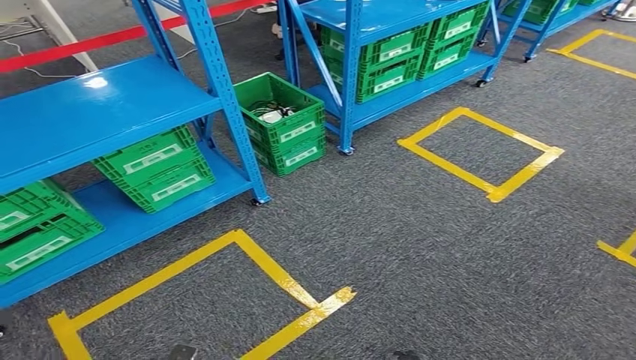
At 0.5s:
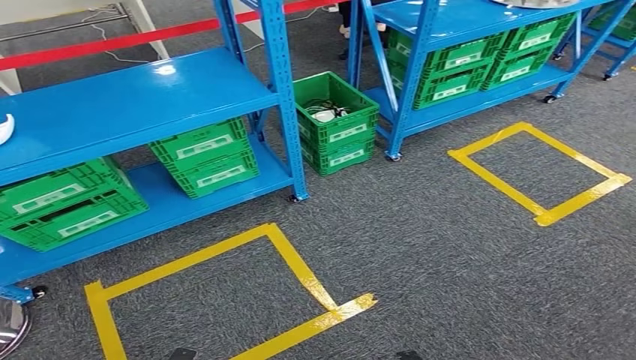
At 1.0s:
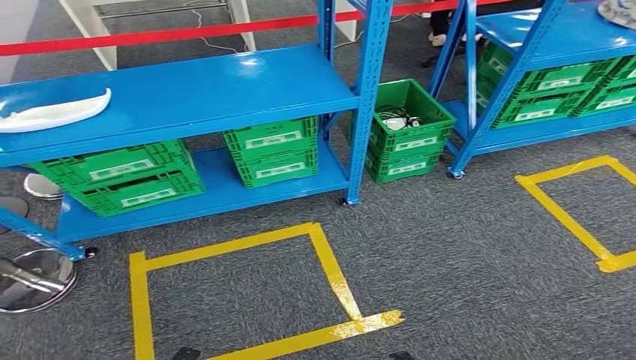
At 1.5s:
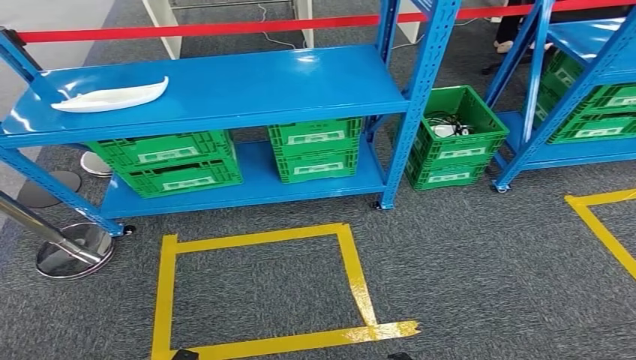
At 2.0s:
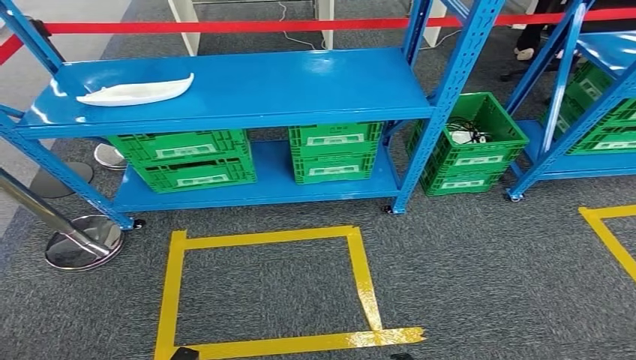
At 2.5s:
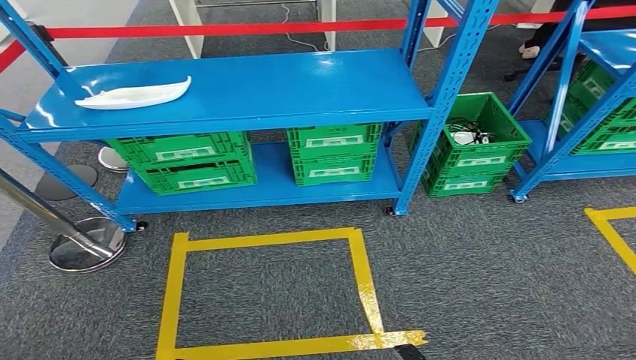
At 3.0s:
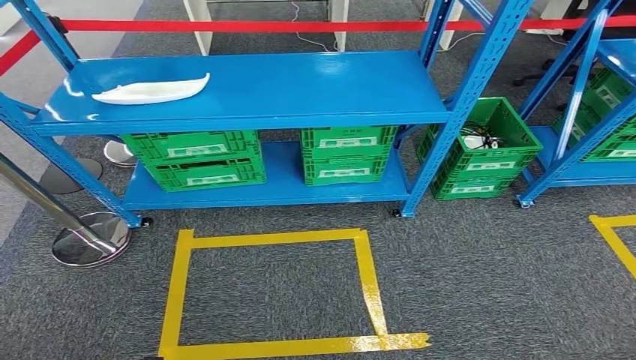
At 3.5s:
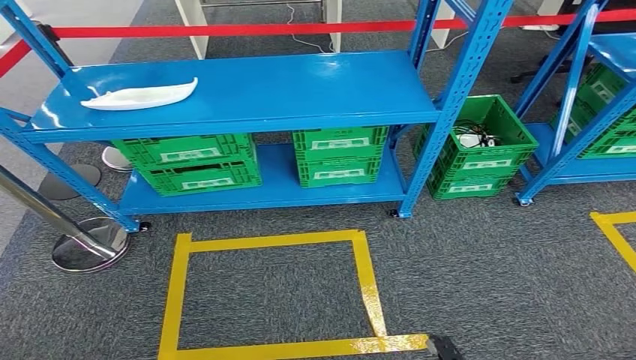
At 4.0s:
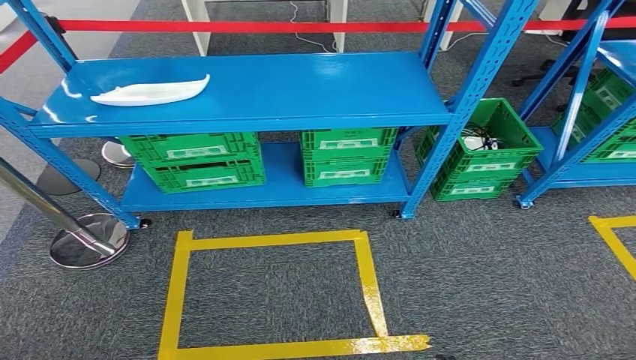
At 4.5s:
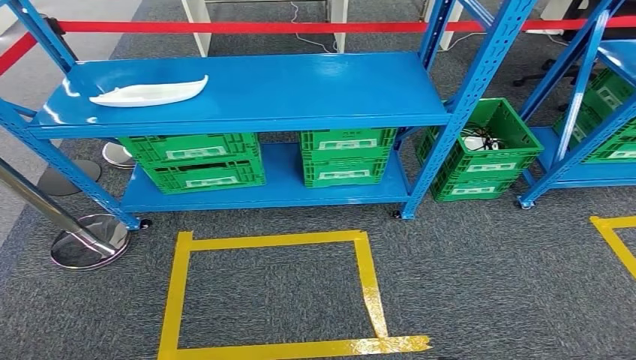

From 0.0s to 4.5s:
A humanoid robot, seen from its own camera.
Step, from 0.0s to 4.5s: Return to the initial position at the workbench.

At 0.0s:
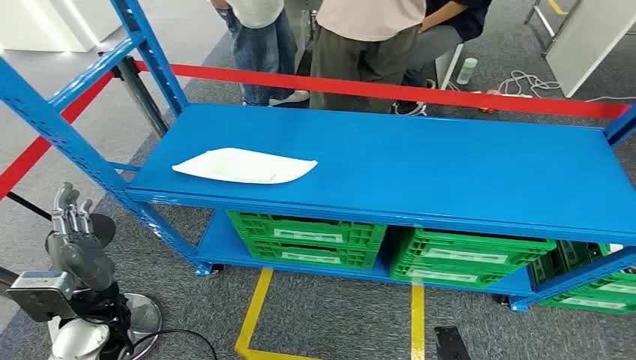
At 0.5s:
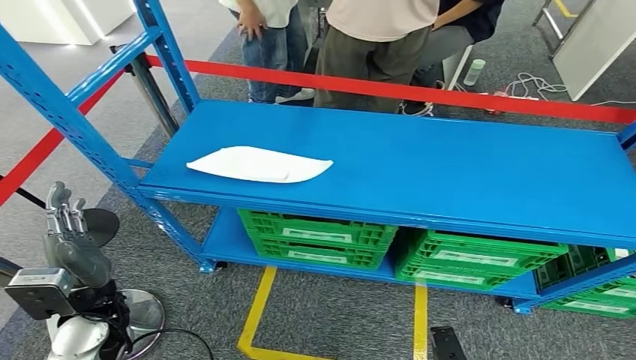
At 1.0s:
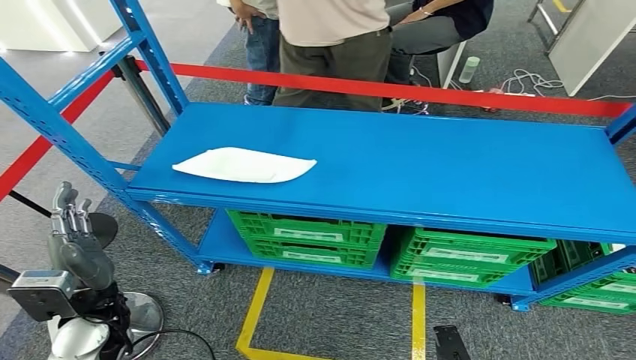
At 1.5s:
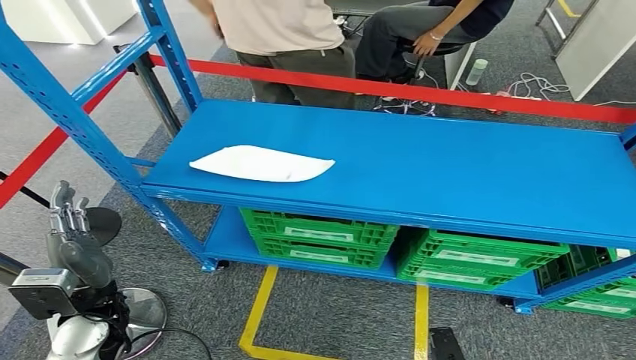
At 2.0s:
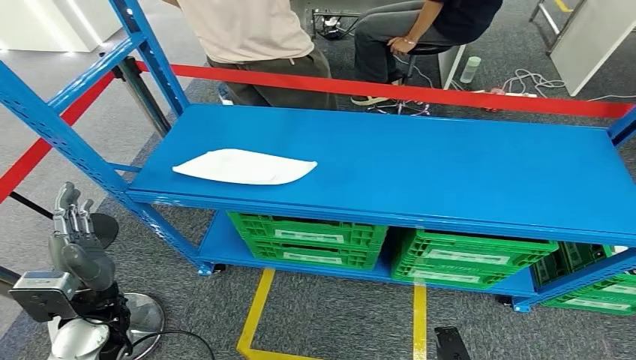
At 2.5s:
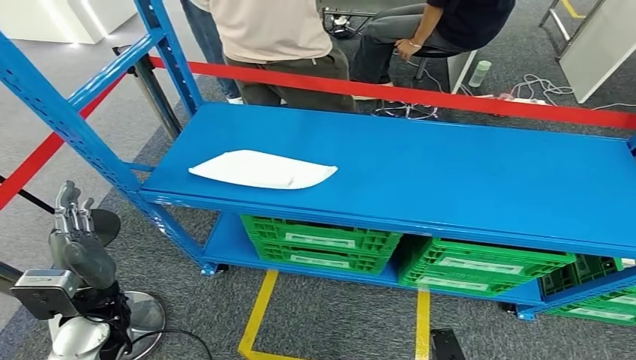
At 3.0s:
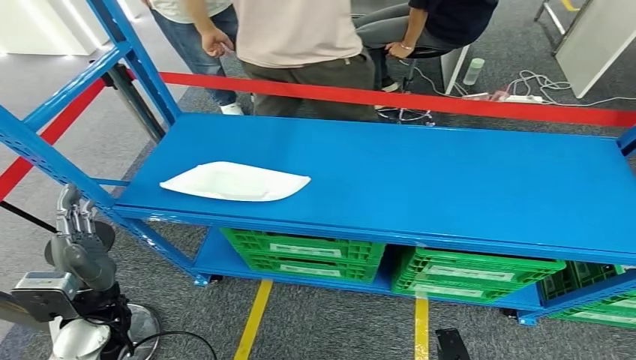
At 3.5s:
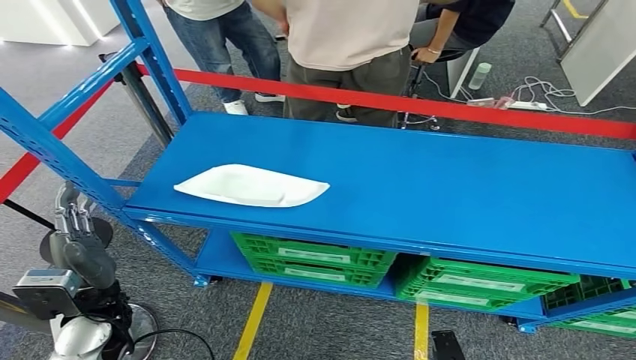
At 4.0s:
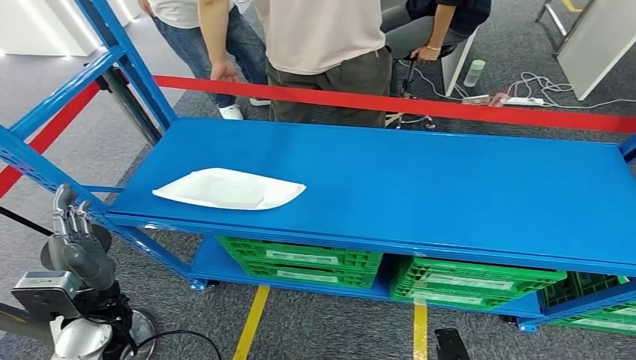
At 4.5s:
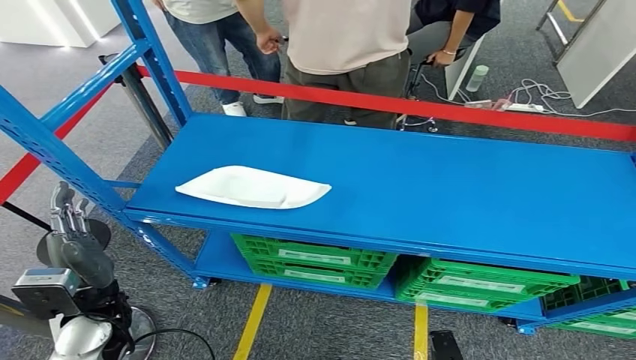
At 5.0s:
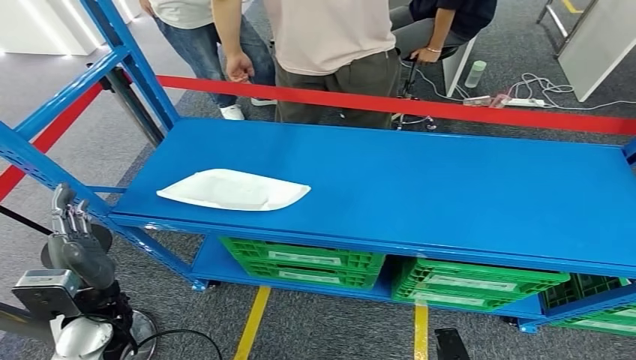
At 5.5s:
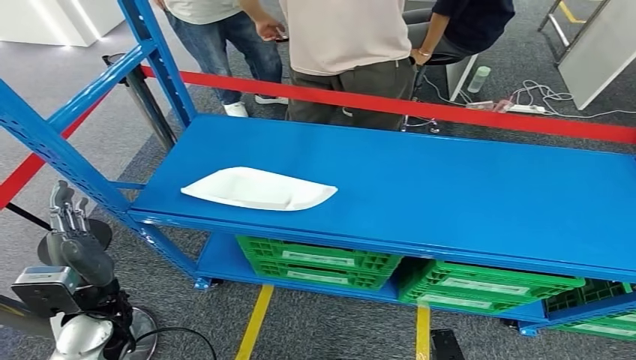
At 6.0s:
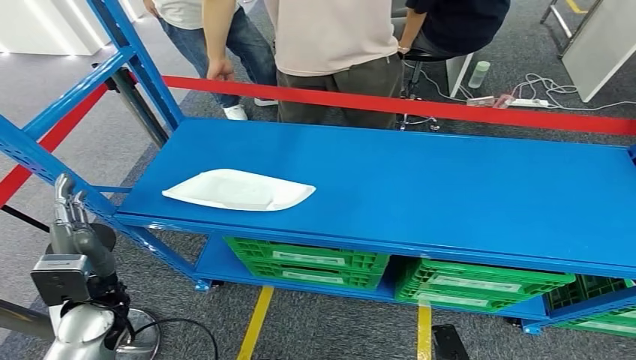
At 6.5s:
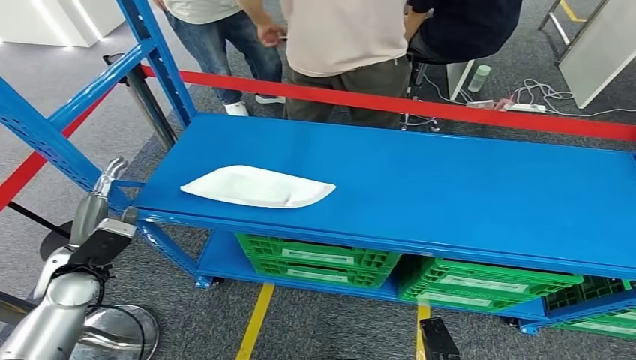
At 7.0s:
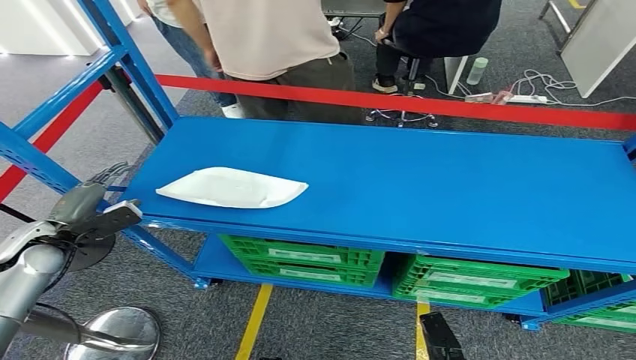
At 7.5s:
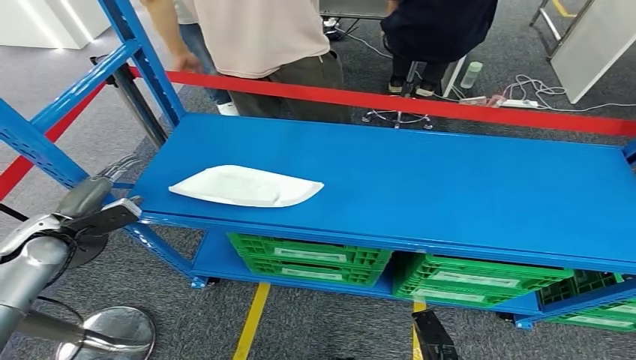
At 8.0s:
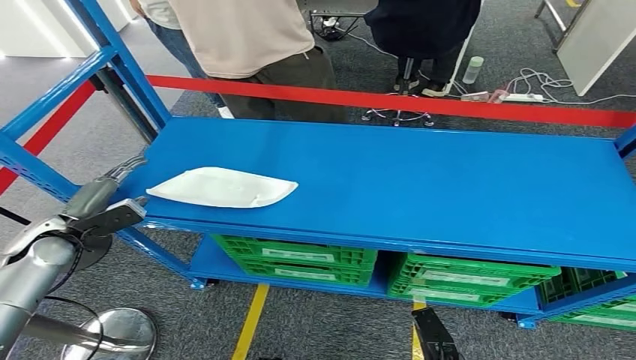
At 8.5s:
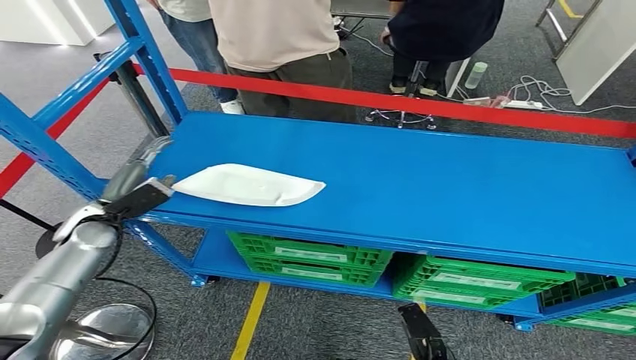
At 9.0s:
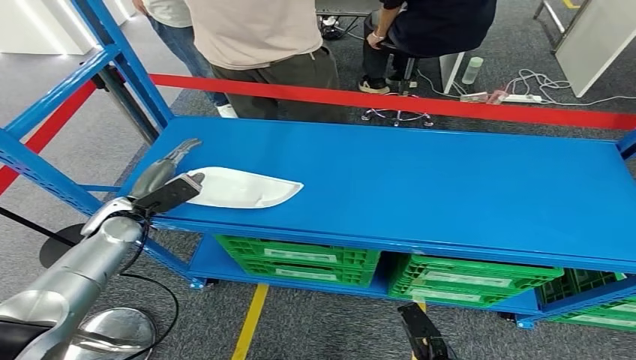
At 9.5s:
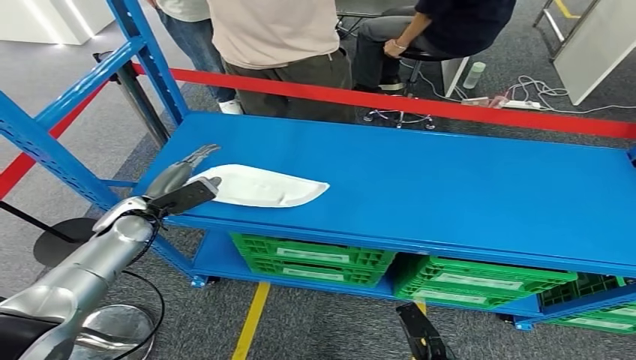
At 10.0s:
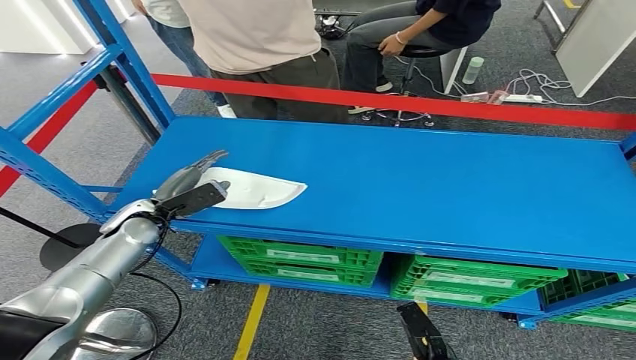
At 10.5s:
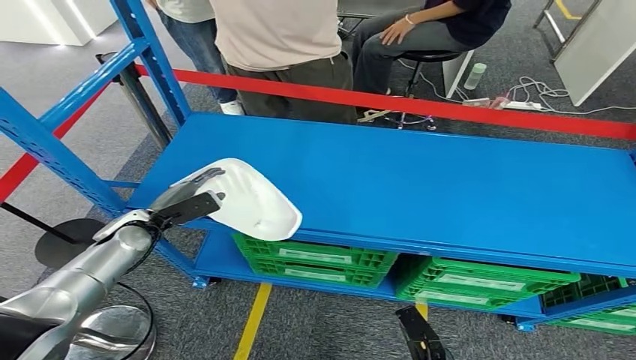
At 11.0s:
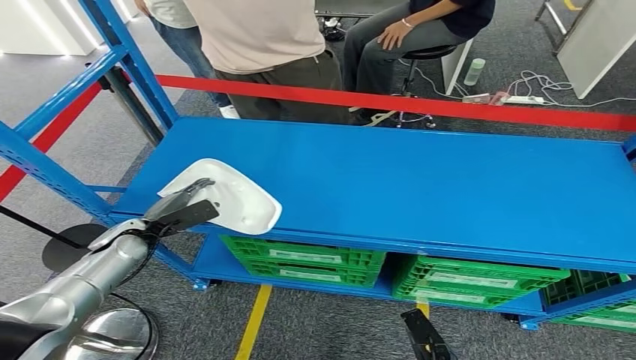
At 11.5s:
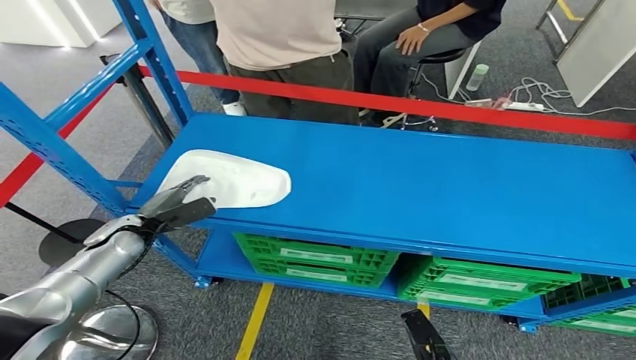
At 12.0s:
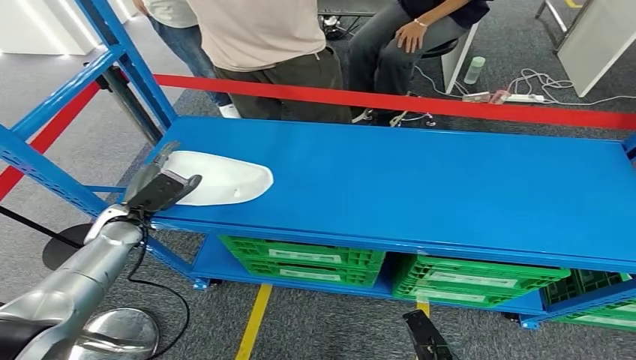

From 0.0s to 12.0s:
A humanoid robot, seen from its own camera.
From 8.0s to 10.0s: The left hand goes approximately 15 cm to the right.
From 10.0s to 12.0s: The hands make only small movements.

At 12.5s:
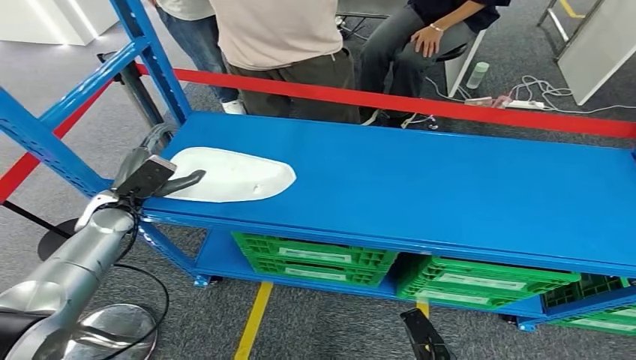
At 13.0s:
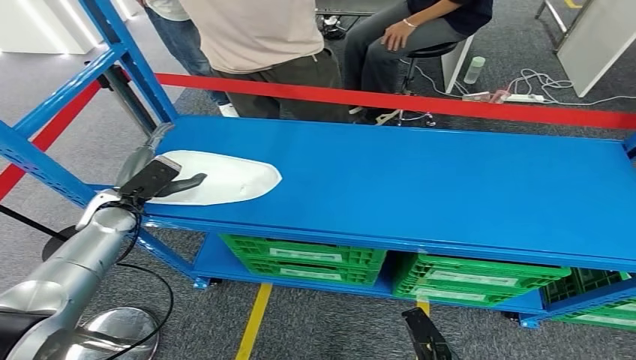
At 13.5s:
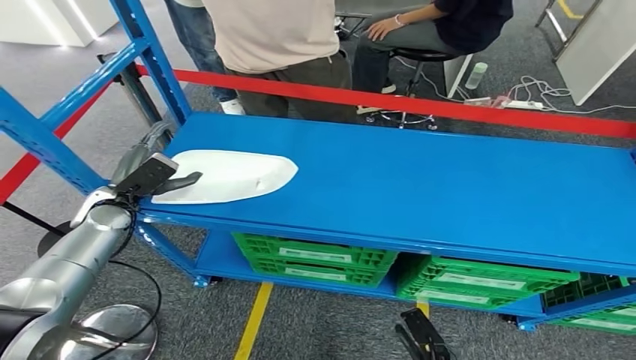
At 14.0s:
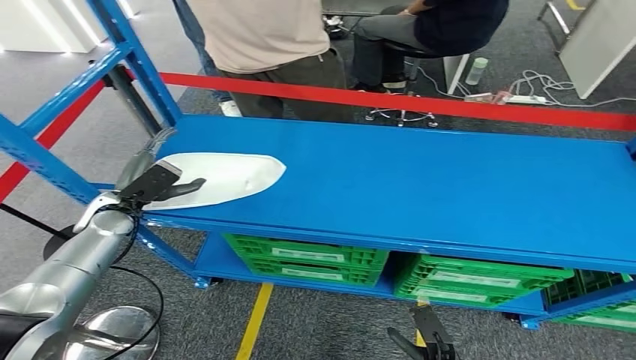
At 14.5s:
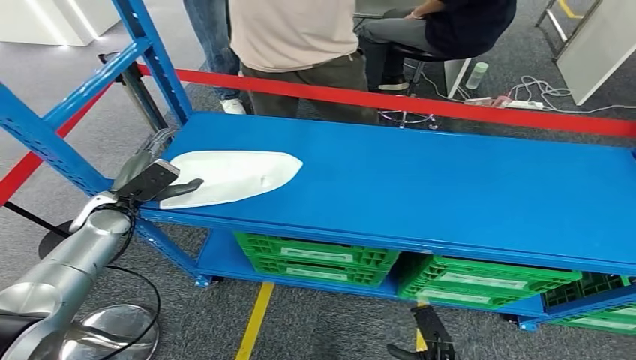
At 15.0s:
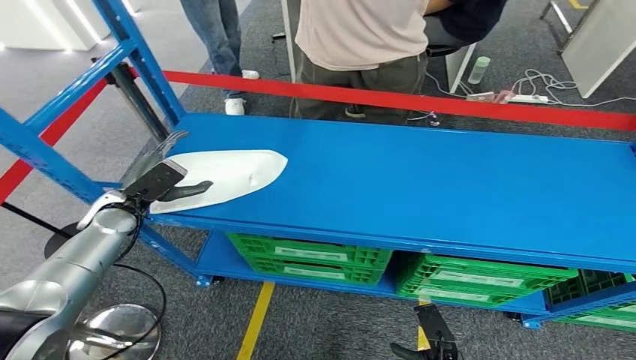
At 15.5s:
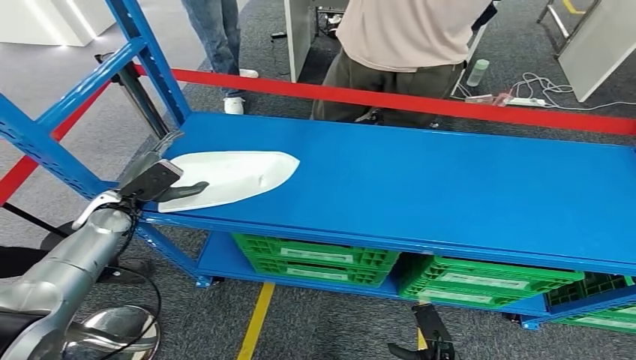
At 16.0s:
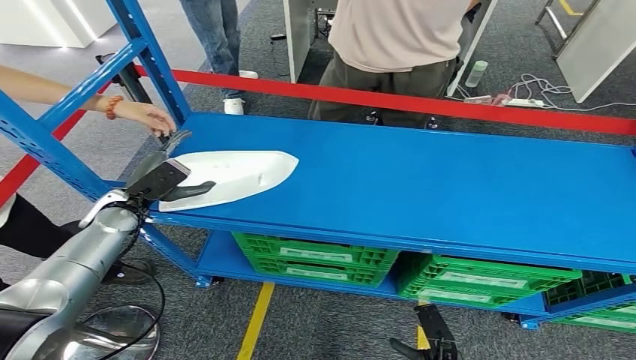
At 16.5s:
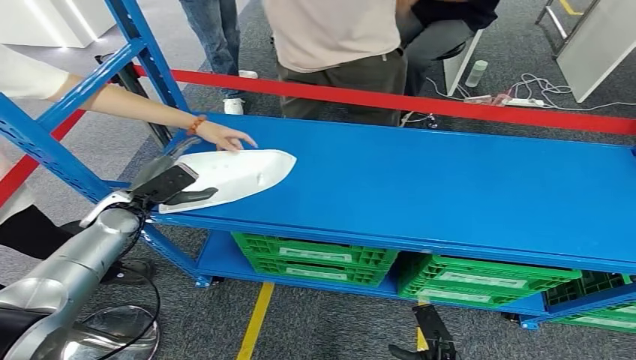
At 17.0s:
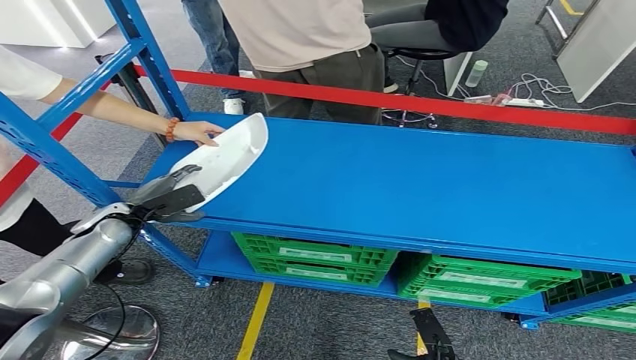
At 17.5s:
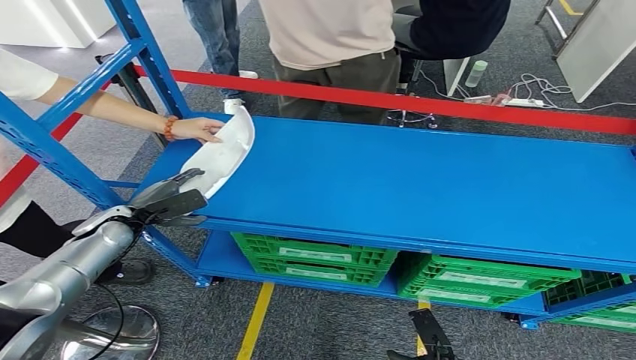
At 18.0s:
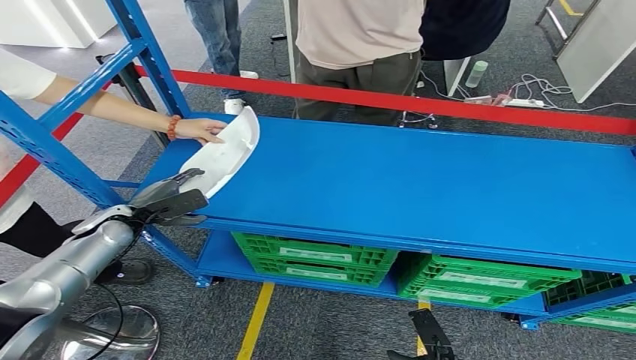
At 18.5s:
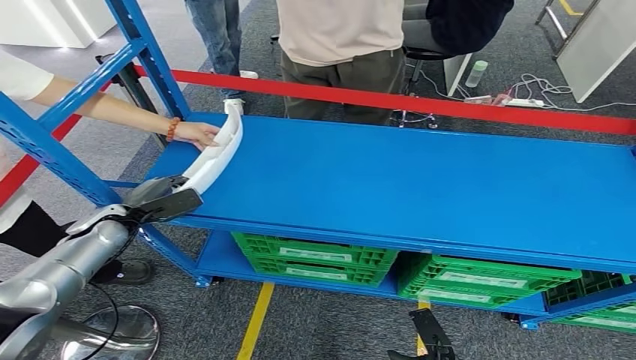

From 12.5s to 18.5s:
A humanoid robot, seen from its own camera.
From 12.5s to 14.5s: The hands move only a little.
